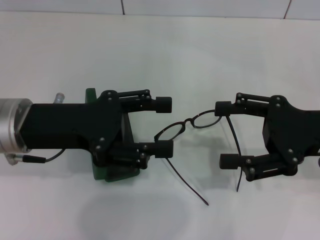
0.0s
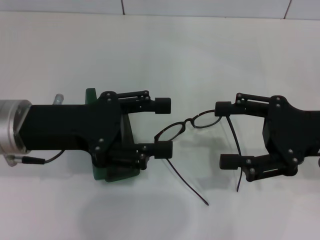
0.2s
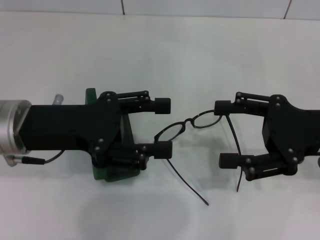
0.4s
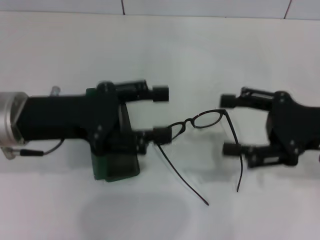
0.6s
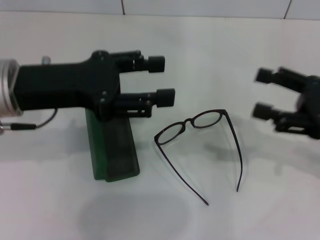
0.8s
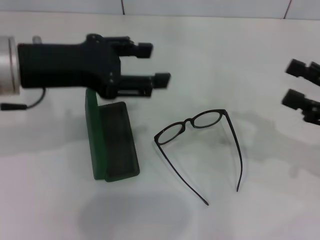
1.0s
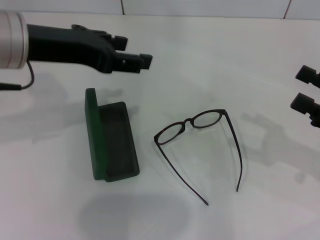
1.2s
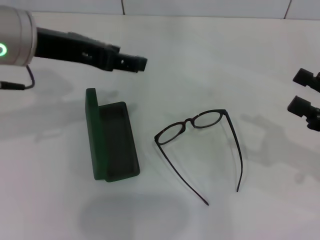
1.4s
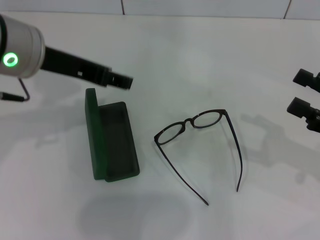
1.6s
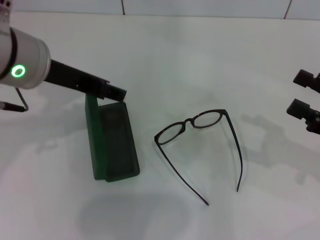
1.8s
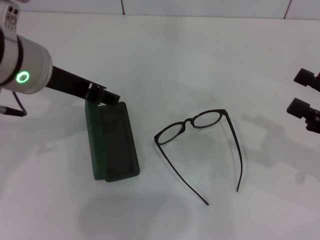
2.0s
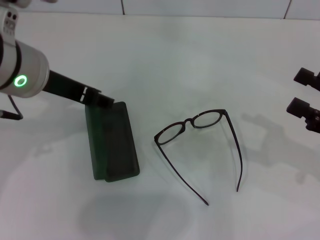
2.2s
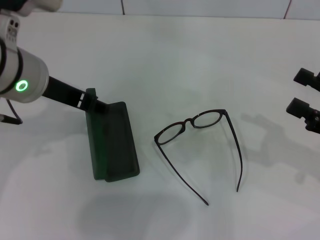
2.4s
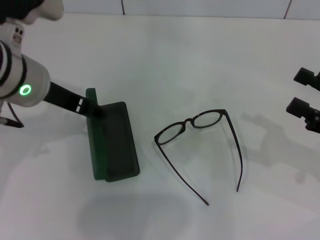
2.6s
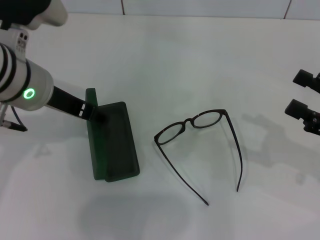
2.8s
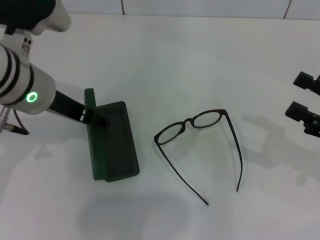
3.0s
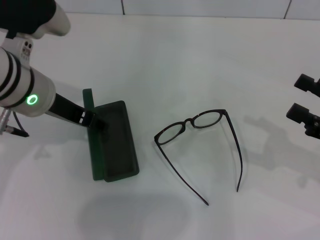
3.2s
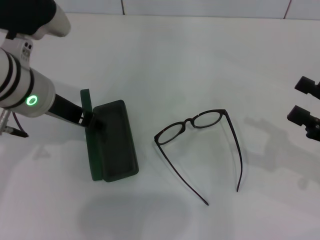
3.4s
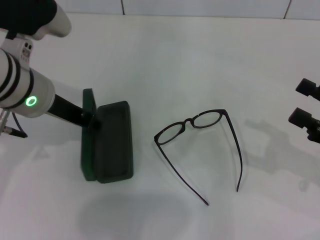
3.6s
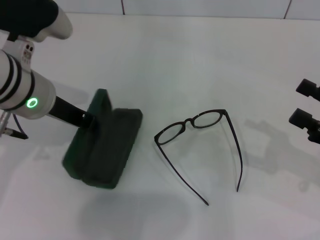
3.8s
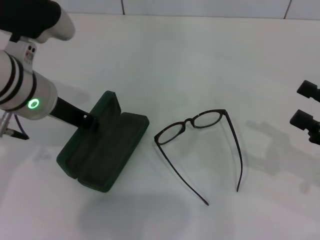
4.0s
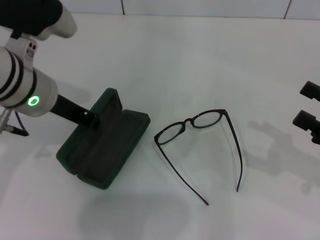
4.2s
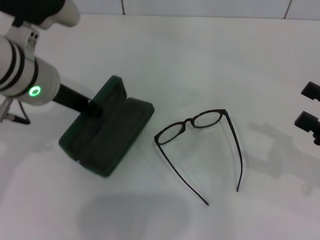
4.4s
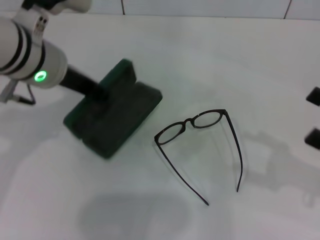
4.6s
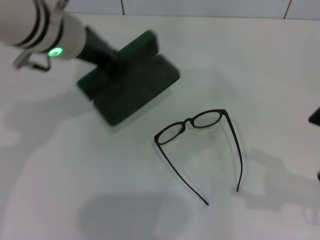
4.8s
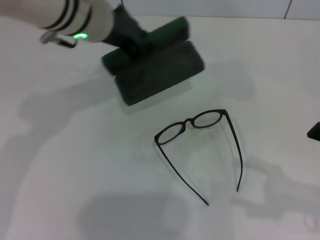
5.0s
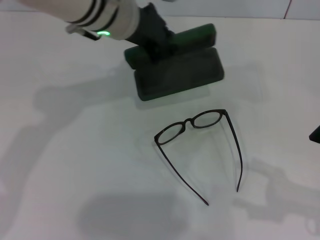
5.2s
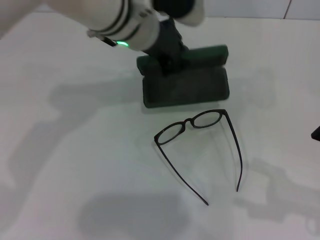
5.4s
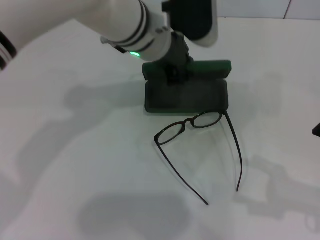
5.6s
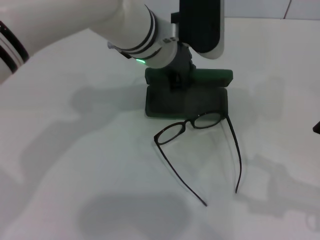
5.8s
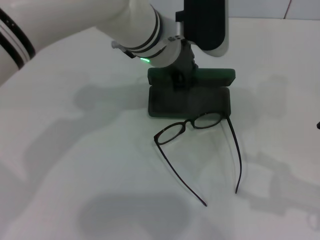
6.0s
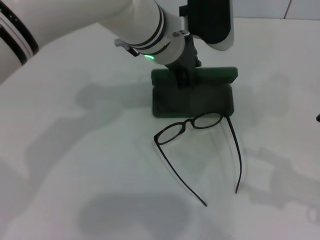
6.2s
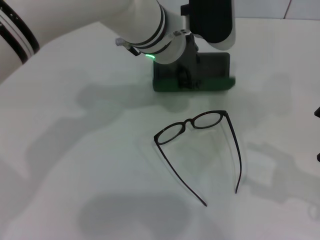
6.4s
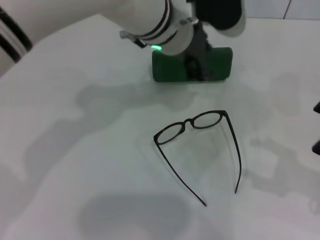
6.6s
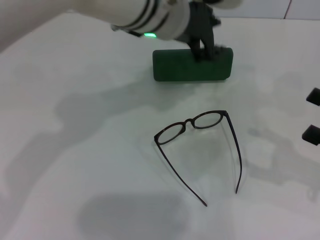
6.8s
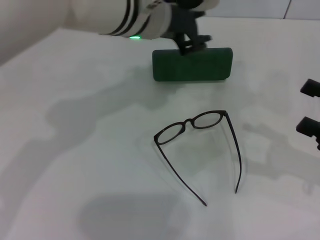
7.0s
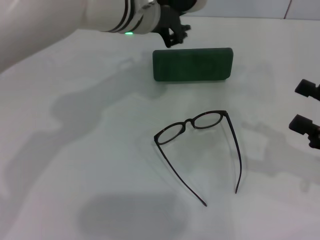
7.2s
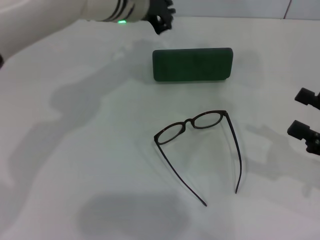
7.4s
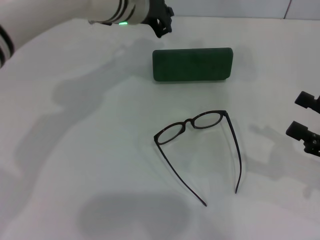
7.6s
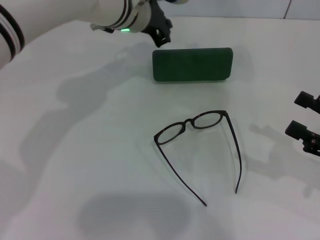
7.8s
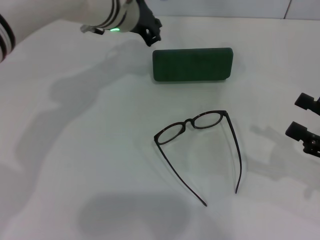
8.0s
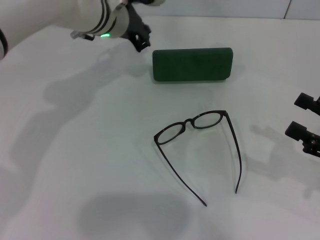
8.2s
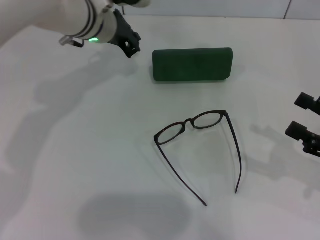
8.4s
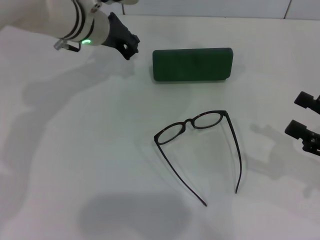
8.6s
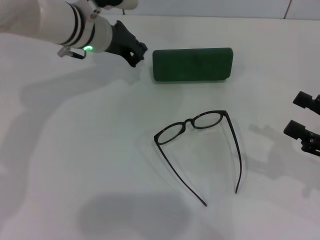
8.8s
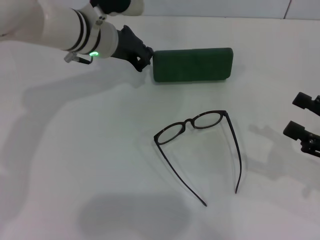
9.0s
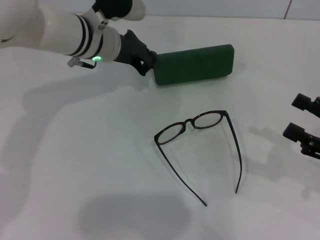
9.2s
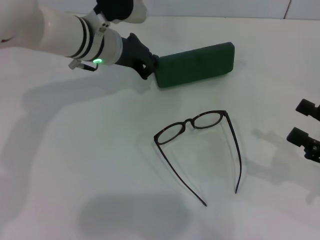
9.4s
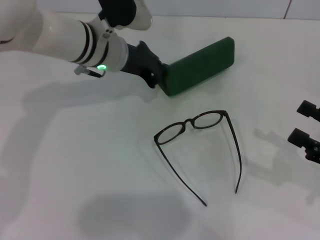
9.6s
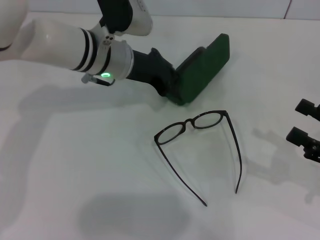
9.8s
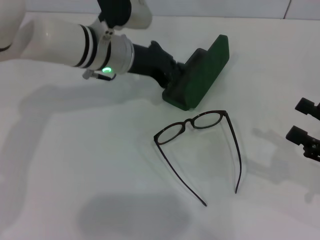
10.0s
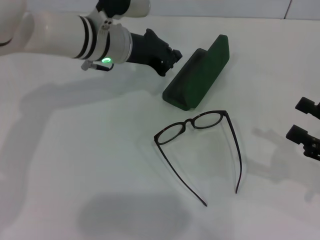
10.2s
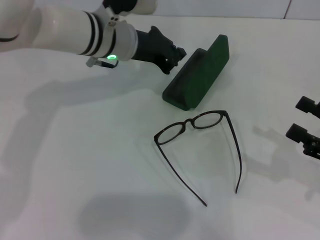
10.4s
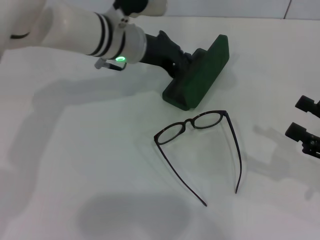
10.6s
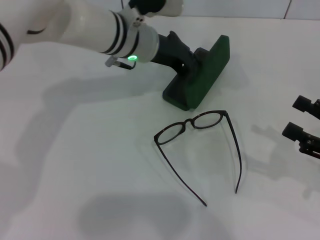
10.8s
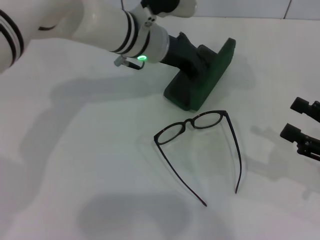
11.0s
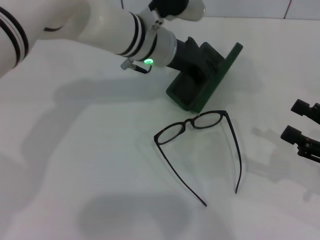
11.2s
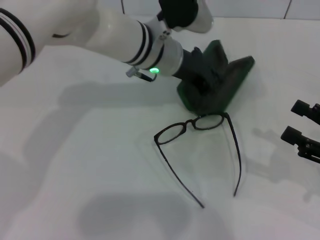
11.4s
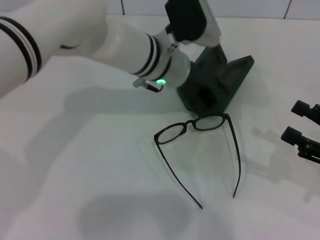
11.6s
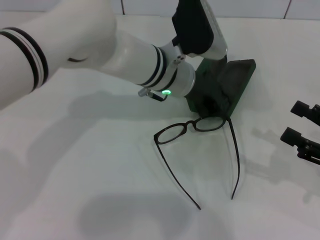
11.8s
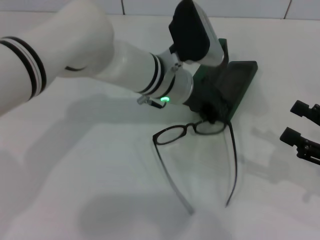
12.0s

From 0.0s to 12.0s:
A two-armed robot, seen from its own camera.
Step, from 0.0s to 3.8s: Grab the glasses case with your left hand.
From 0.0s to 1.6s: The right gripper shifts approximately 10 cm to the right. The left gripper is displaced upward by roughly 10 cm.
From 1.6s to 3.0s: The left gripper shifts roughly 5 cm downward.
From 3.0s to 4.4s: The left gripper closes its fingers.
From 4.4s to 6.0s: The left gripper goes about 15 cm to the right and forward.
From 6.0s to 7.6s: The left gripper shifts about 5 cm forward.
From 7.6s to 9.0s: The left gripper travels to the left by roughly 5 cm.
From 9.0s to 10.4s: There are only small adjustments of the grippers.
From 10.4s to 12.0s: The left gripper moves to the right, some 10 cm.

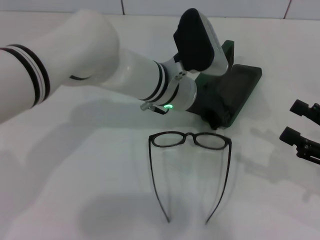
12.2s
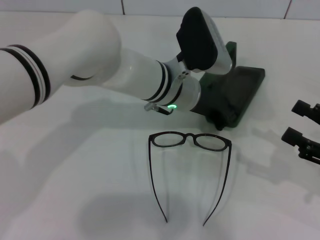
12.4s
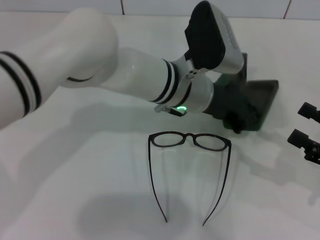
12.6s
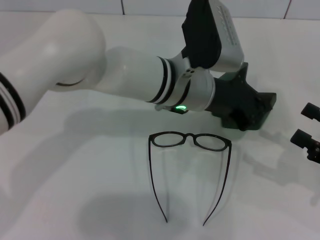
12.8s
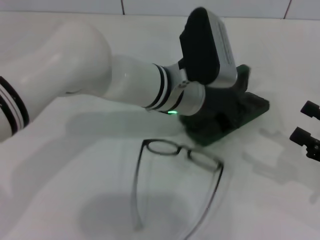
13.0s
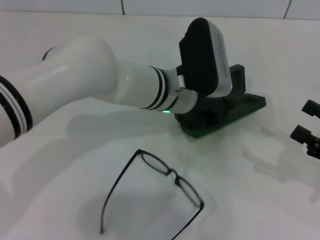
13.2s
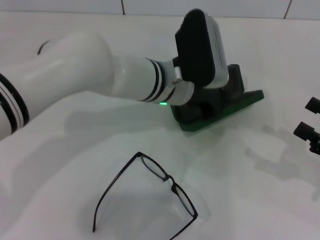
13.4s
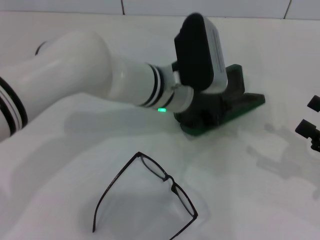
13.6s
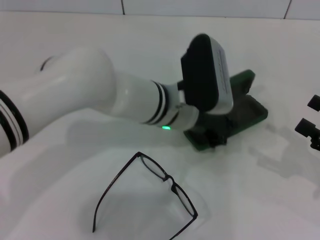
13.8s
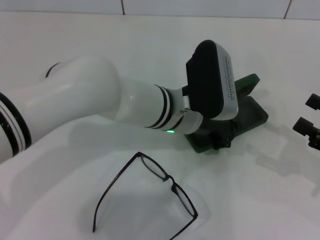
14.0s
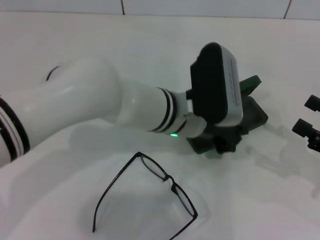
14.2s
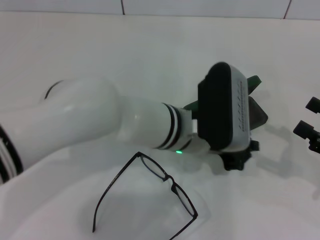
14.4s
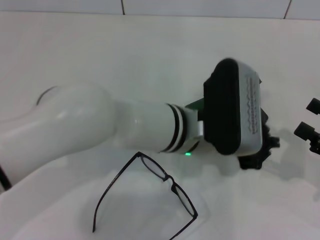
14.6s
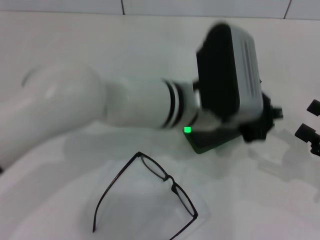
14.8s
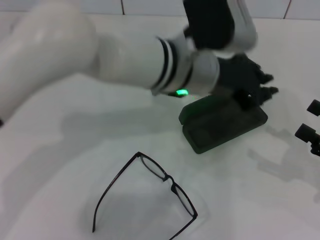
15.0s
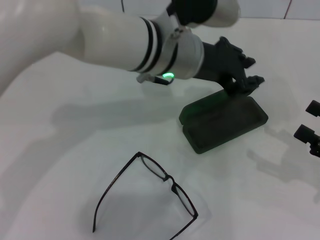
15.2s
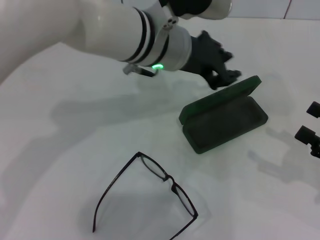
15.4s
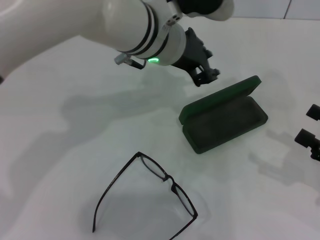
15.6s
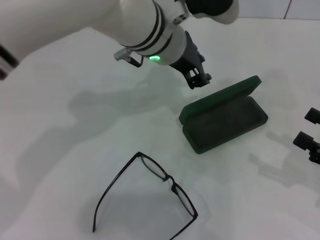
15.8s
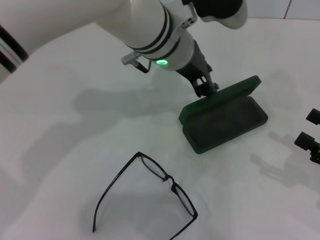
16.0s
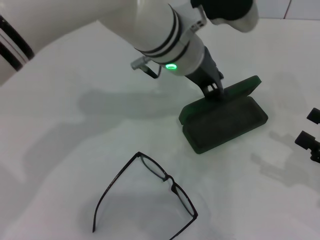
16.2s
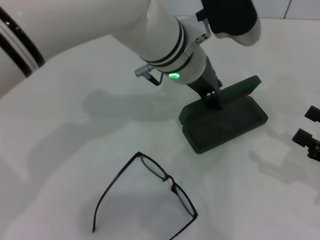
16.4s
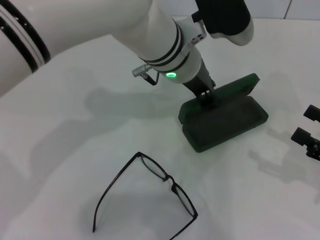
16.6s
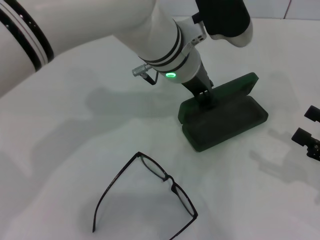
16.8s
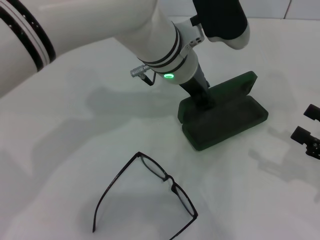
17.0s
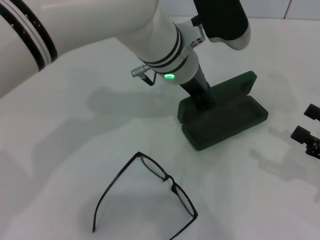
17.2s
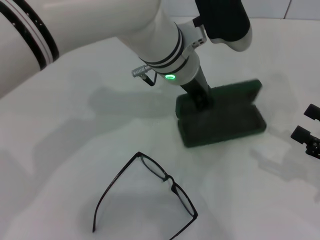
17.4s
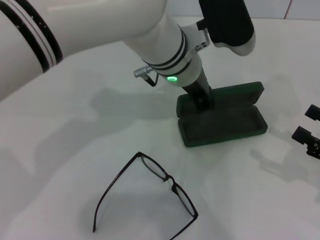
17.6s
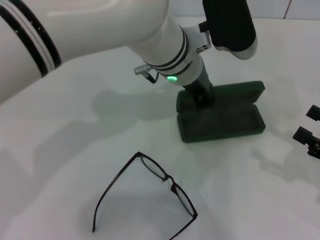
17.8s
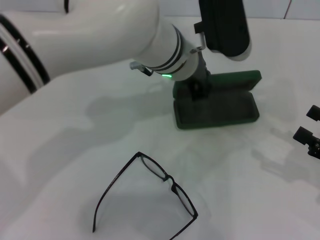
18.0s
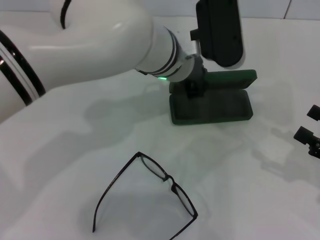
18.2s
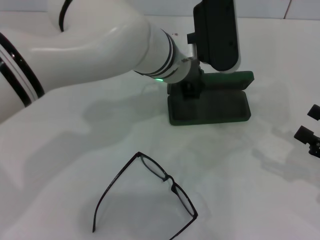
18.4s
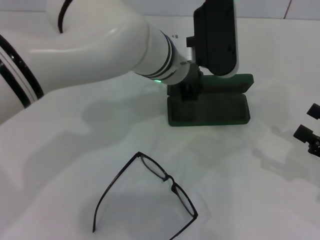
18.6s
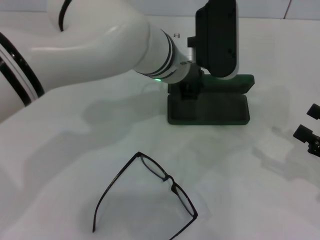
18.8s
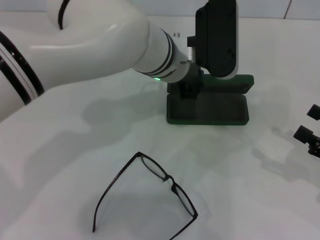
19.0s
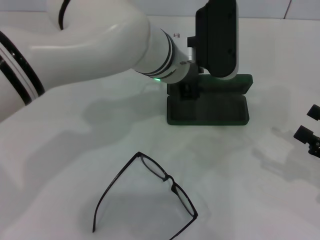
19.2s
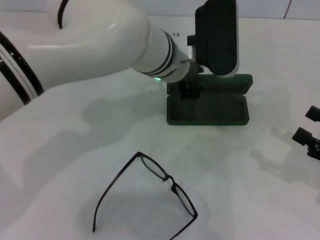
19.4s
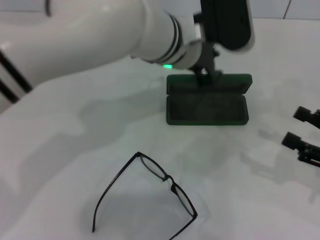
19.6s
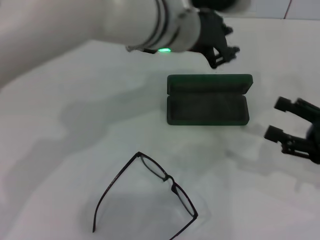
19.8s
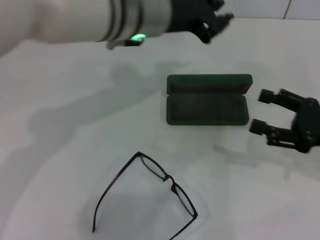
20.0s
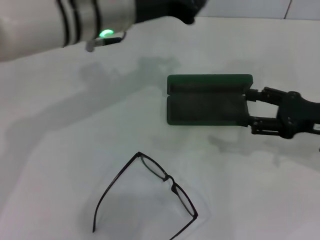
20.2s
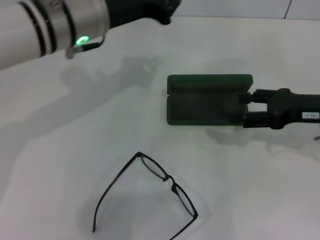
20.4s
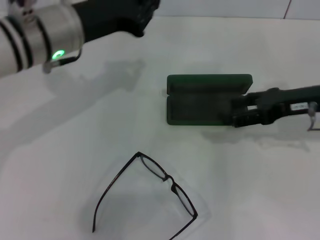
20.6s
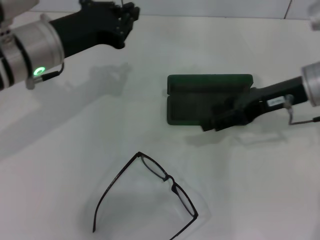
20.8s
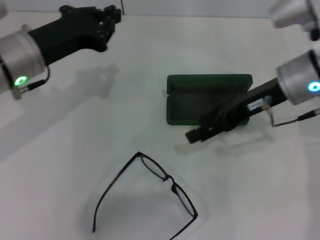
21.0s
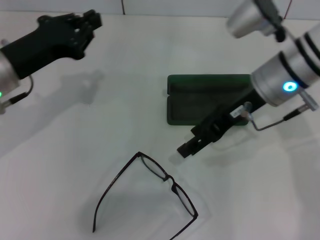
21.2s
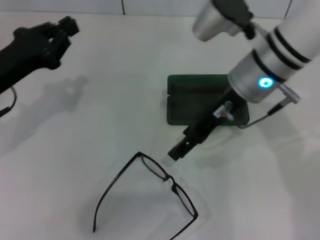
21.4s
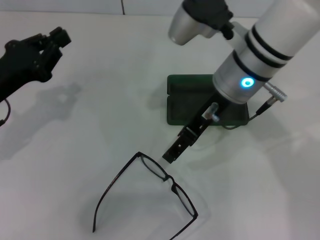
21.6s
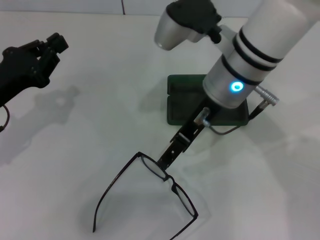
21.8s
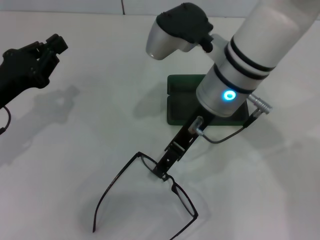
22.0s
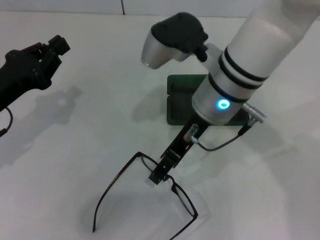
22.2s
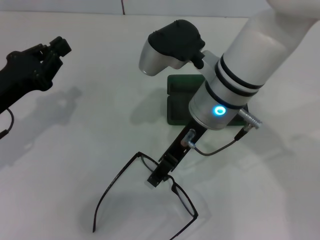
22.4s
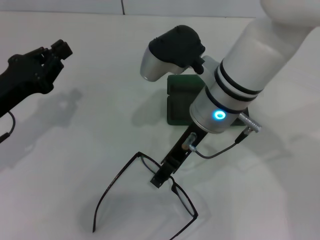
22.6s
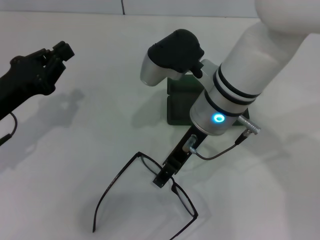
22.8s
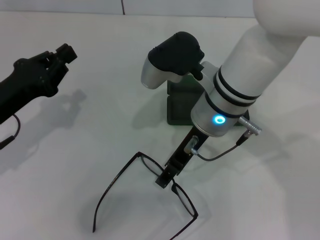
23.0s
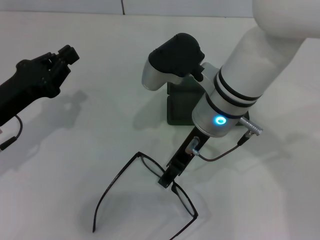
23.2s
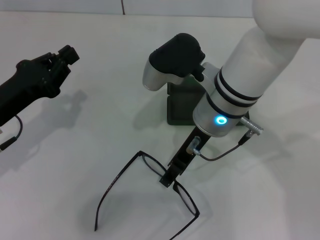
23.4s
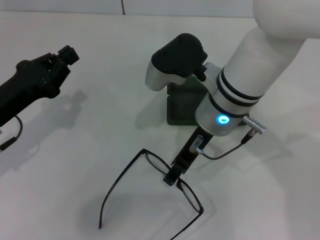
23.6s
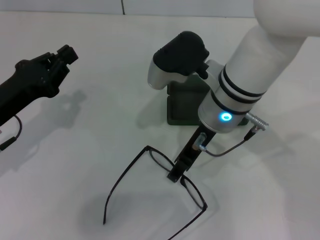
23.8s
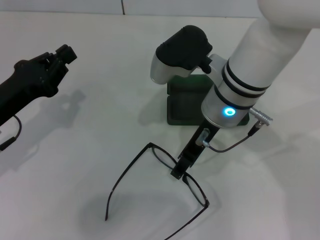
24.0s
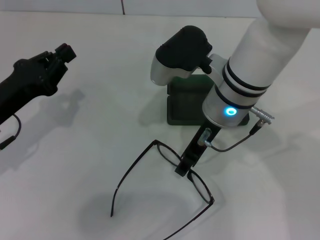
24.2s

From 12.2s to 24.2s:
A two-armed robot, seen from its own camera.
Step, from 12.2s to 19.2s: Place the glasses case in the center of the table with your left hand.
Step, from 19.4s to 23.4s: Grab the eyeglass frame with your right hand.
From 13.8s to 15.2s: The left gripper travels upward by some 10 cm, and opens.
From 18.2s to 19.8s: The left gripper goes roughly 5 cm upward.
From 19.8s to 21.2s: The right gripper goes roughly 25 cm to the left, forward and upward; the left gripper shifts approximately 20 cm to the left, and closes up.
From 21.2s to 22.6s: The right gripper travels to the left by some 10 cm; the left gripper shifts by approximately 5 cm.
From 22.6s to 24.2s: The grippers move only a little.
